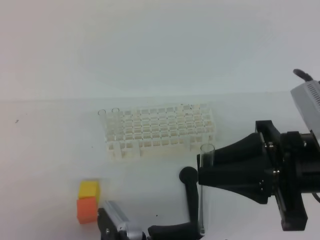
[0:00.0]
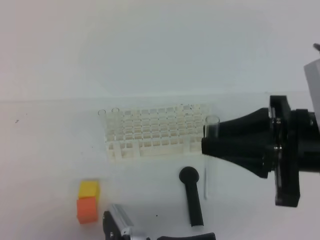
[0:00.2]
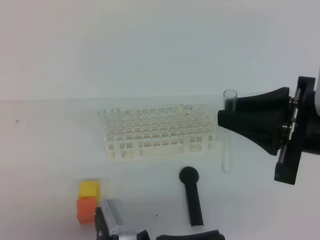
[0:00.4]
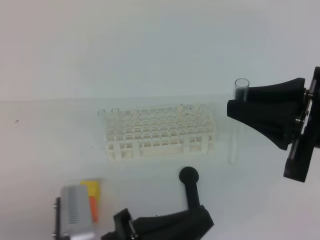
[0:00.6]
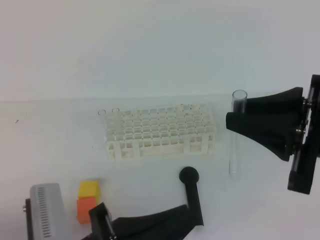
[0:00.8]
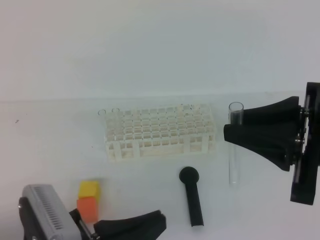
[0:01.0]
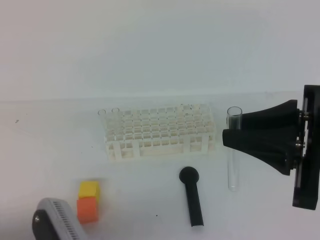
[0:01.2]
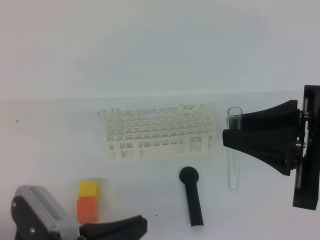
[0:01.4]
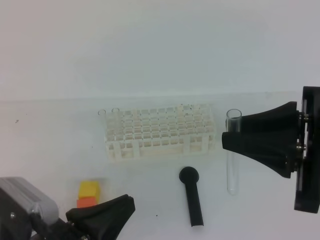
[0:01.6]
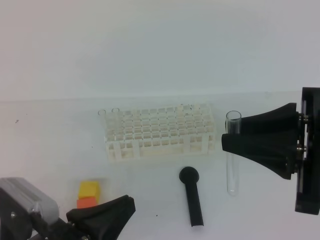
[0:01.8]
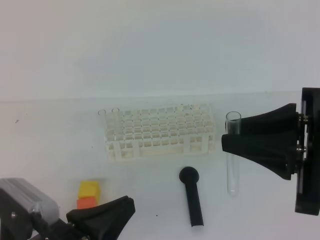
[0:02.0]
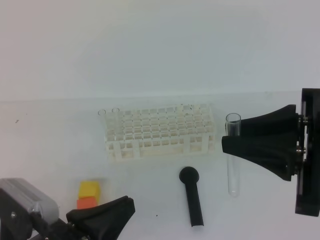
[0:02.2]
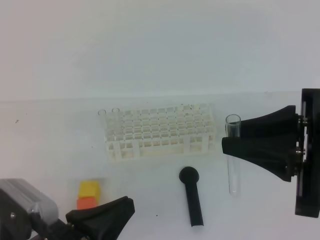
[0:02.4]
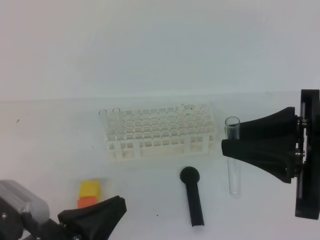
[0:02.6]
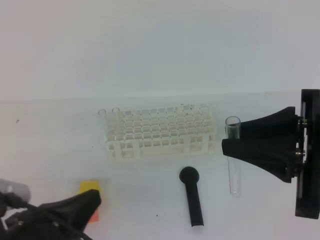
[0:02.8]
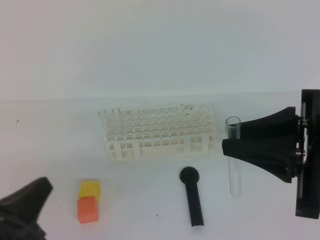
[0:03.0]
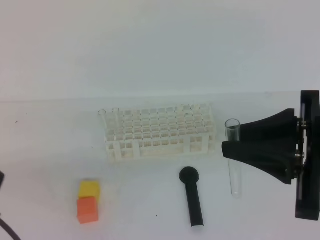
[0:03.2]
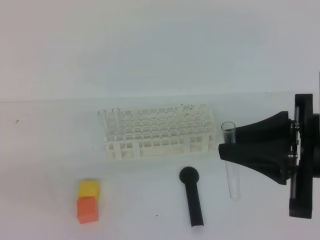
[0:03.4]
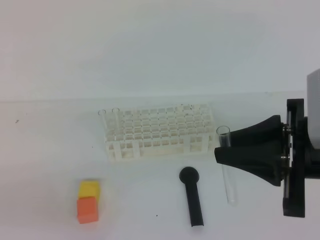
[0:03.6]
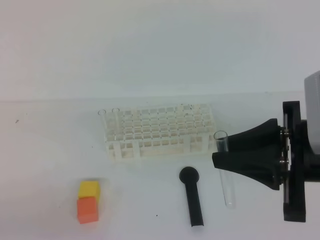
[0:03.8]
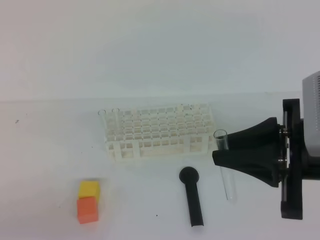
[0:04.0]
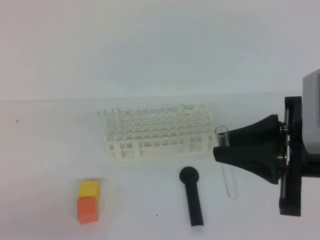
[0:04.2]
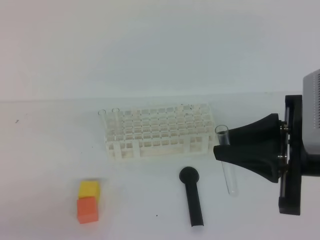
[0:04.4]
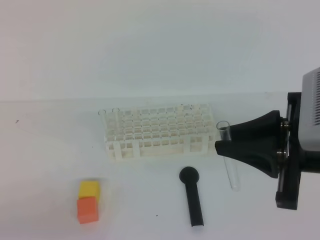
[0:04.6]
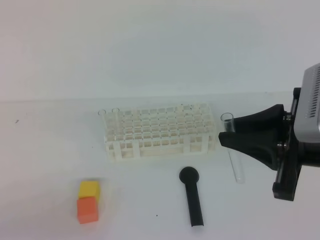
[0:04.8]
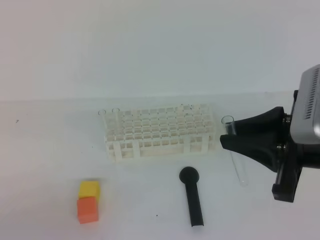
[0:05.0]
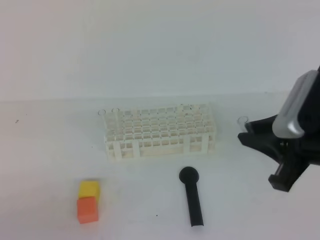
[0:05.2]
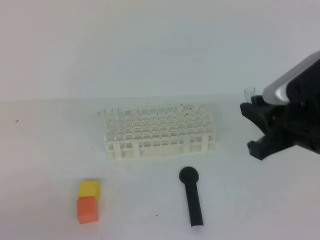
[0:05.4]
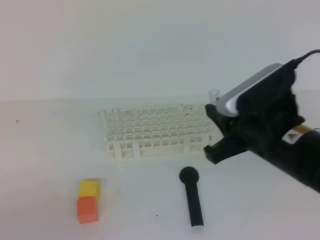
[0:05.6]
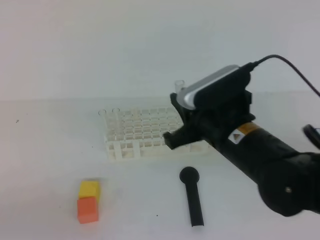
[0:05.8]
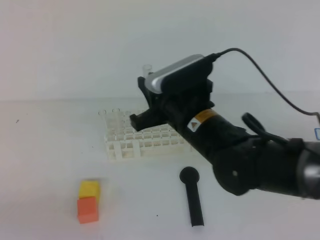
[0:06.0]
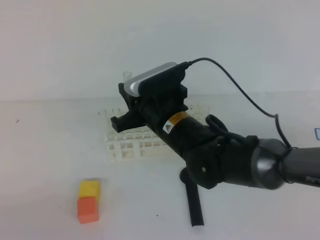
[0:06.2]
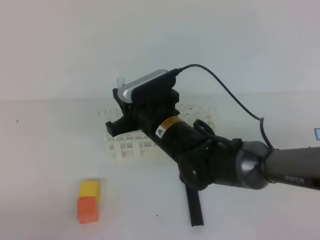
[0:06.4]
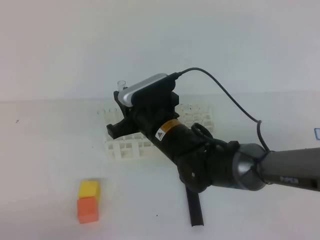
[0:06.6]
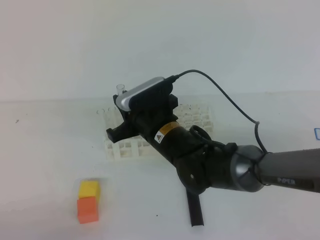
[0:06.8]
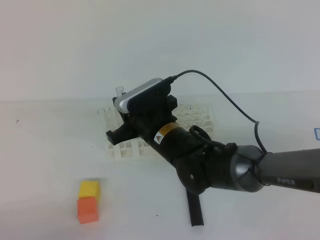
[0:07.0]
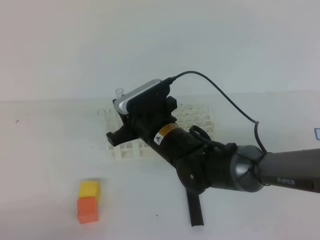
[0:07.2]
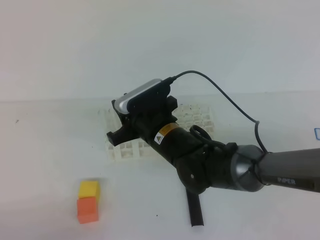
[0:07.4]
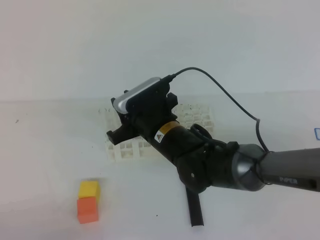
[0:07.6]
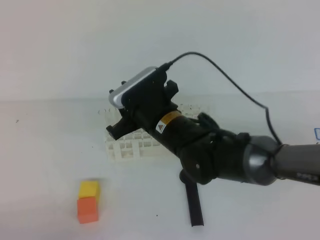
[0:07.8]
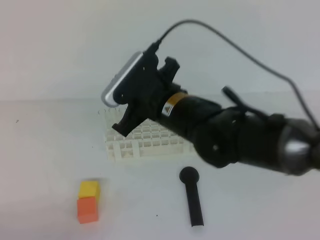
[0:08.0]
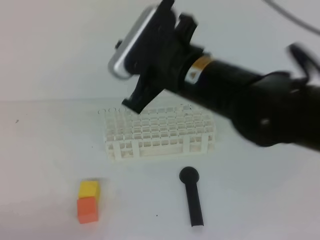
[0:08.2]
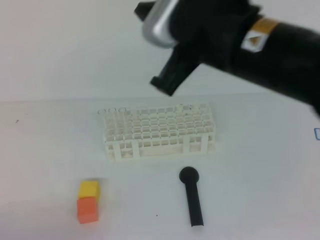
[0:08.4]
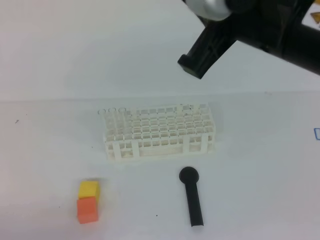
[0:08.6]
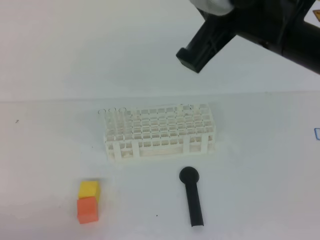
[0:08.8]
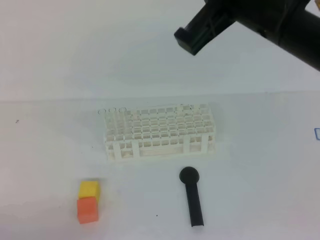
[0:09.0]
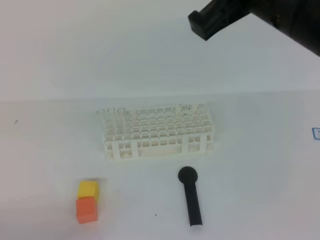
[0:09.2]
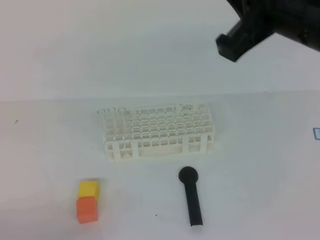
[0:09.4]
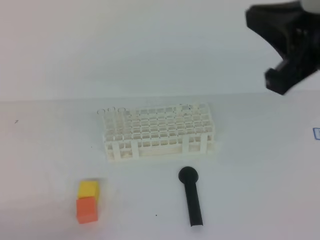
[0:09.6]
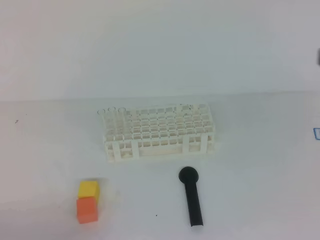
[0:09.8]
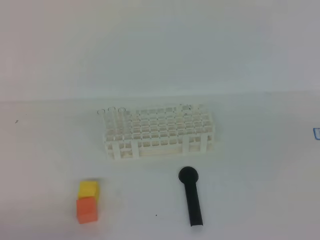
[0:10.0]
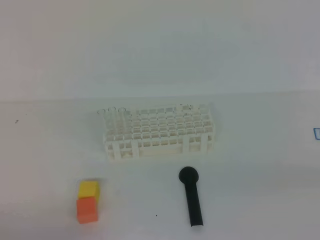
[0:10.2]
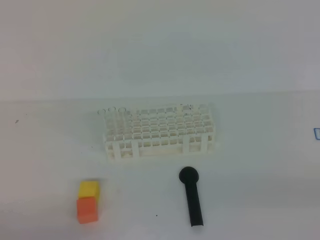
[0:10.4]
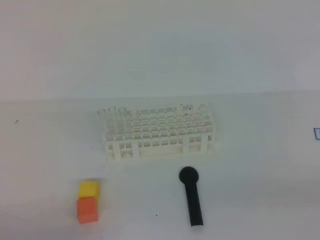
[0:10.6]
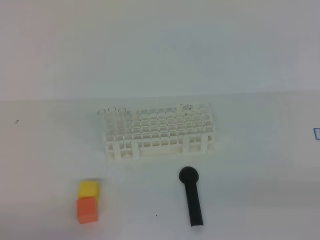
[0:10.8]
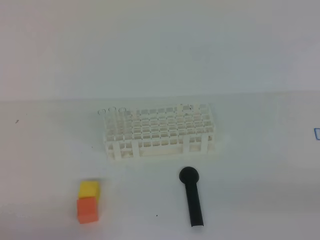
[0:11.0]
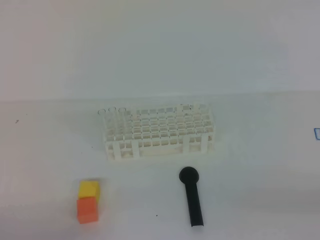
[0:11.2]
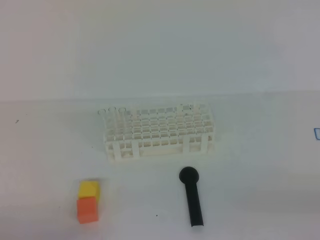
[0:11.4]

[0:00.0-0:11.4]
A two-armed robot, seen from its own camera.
0:00.0 to 0:01.4: The left gripper travels to the left and upward by roughly 10 cm, and closes.
0:01.4 to 0:02.8: The left gripper shifts by some 5 cm.
0:02.8 to 0:04.2: The left gripper moves to the left, roughly 10 cm.
0:04.2 to 0:05.6: The right gripper moves about 5 cm.
0:05.6 to 0:07.2: The right gripper heads to the left, downward and forward, covering roughly 20 cm.
0:07.2 to 0:08.6: The right gripper goes about 30 cm upward, backward and to the right, and closes its fingers.
0:08.6 to 0:10.0: The right gripper goes about 25 cm to the right and backward.
